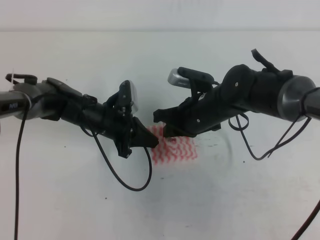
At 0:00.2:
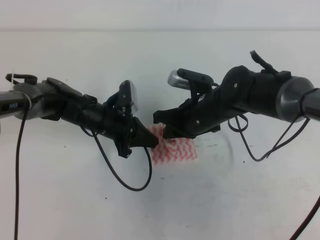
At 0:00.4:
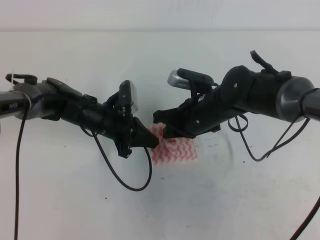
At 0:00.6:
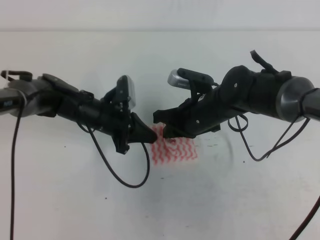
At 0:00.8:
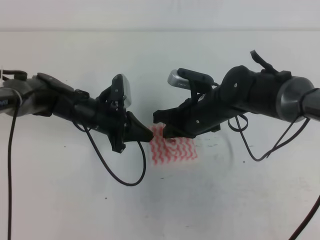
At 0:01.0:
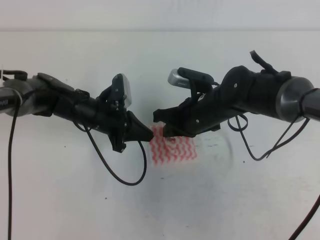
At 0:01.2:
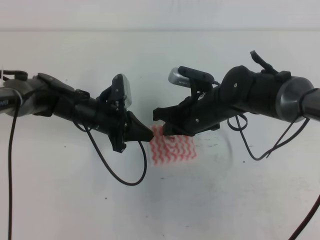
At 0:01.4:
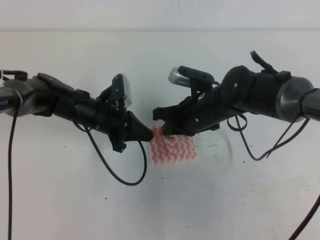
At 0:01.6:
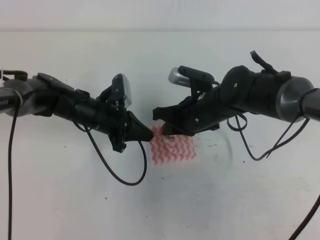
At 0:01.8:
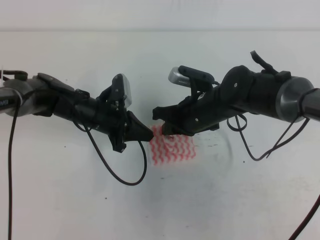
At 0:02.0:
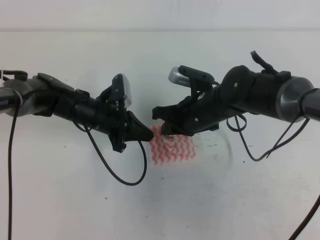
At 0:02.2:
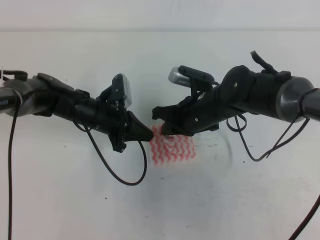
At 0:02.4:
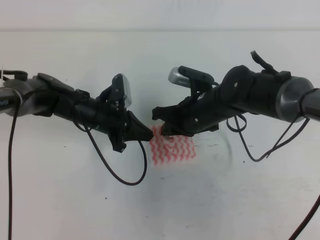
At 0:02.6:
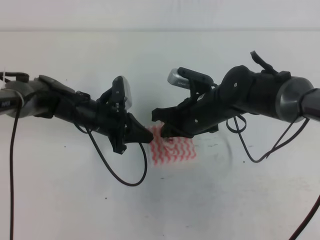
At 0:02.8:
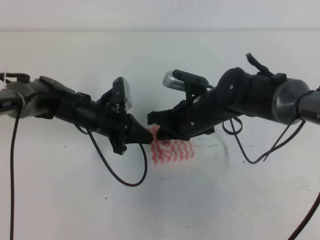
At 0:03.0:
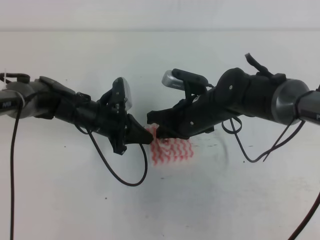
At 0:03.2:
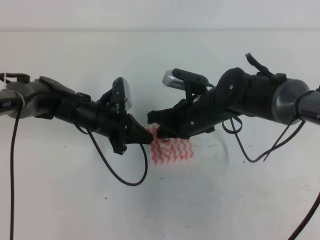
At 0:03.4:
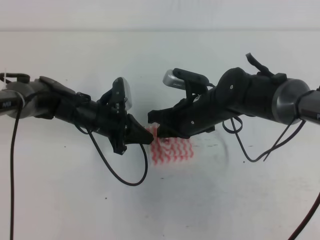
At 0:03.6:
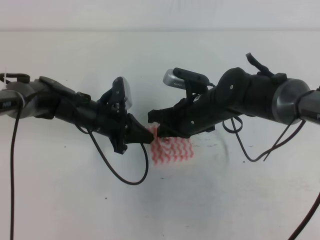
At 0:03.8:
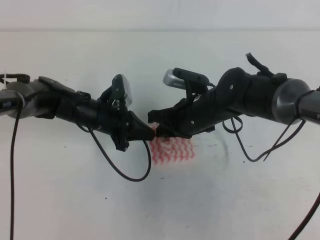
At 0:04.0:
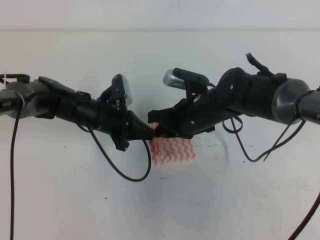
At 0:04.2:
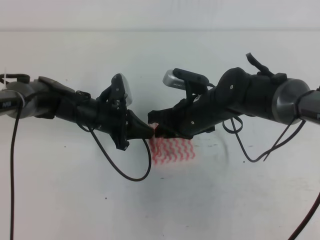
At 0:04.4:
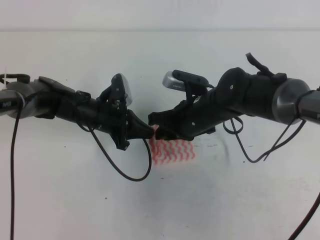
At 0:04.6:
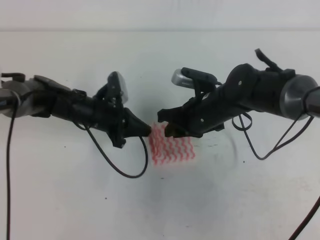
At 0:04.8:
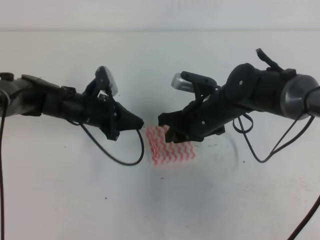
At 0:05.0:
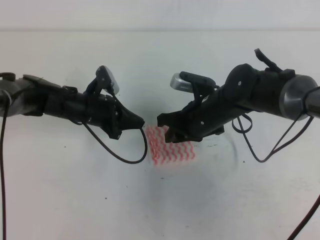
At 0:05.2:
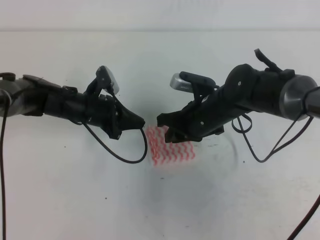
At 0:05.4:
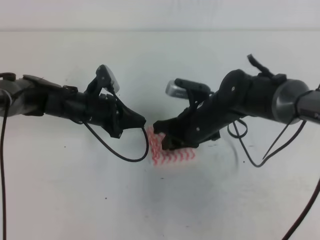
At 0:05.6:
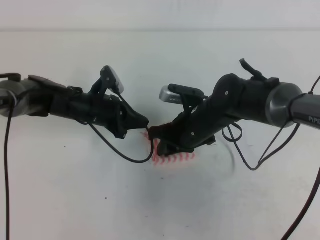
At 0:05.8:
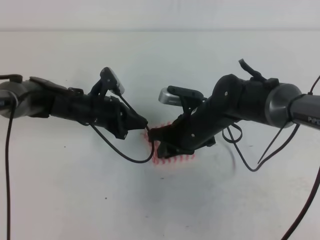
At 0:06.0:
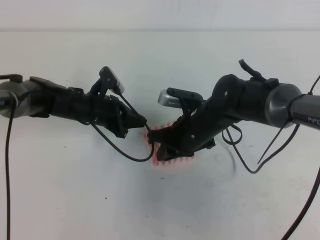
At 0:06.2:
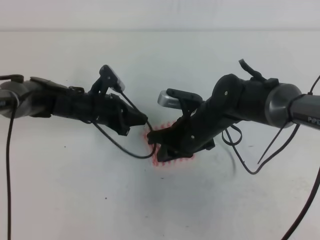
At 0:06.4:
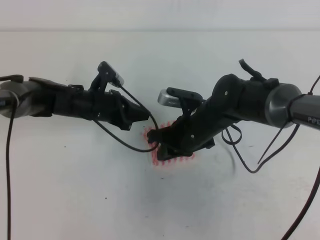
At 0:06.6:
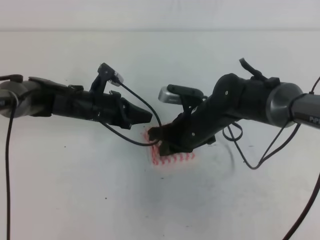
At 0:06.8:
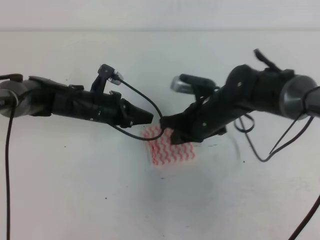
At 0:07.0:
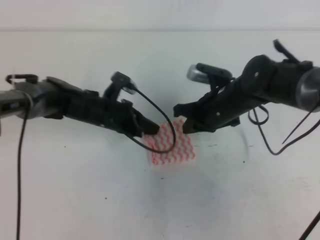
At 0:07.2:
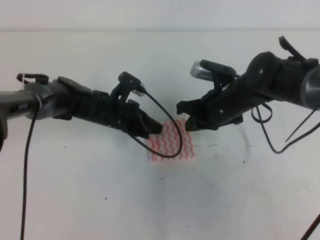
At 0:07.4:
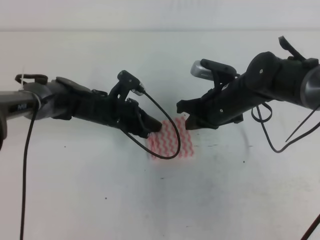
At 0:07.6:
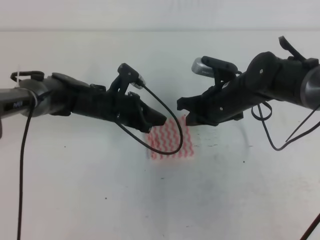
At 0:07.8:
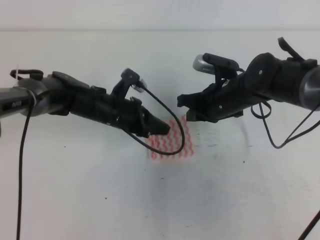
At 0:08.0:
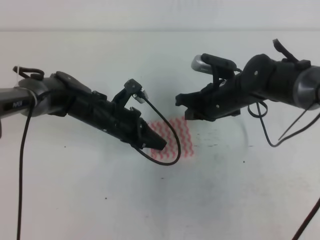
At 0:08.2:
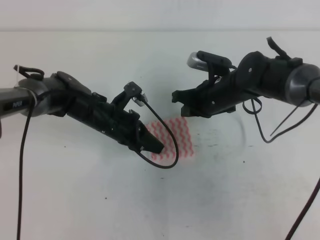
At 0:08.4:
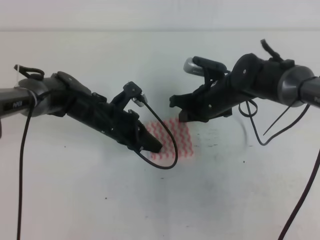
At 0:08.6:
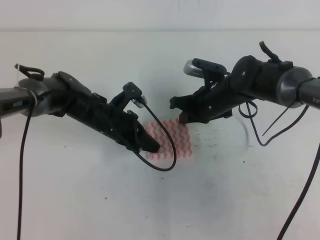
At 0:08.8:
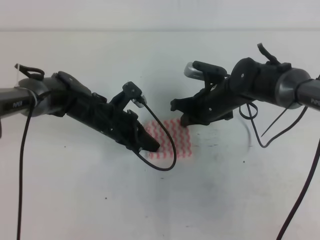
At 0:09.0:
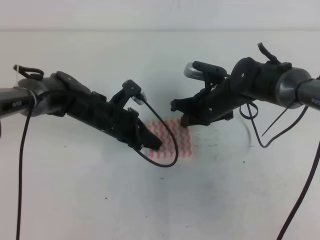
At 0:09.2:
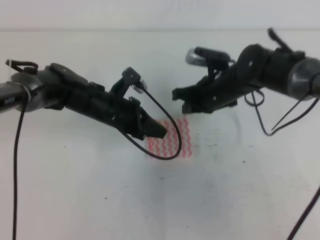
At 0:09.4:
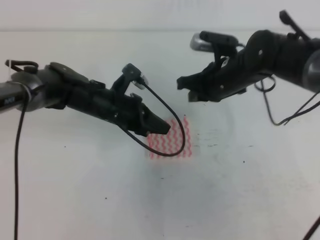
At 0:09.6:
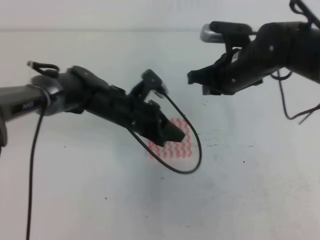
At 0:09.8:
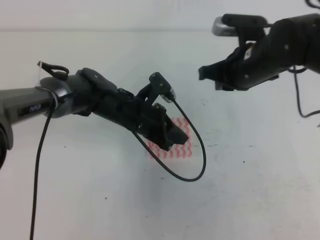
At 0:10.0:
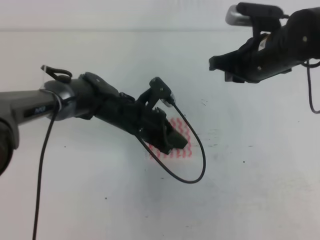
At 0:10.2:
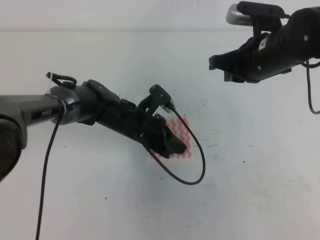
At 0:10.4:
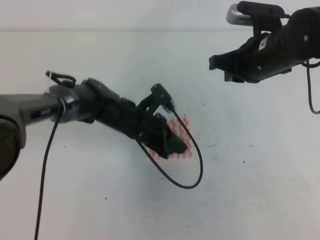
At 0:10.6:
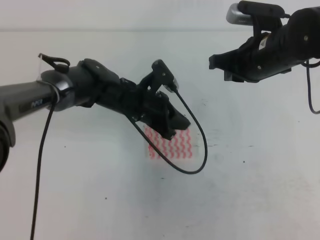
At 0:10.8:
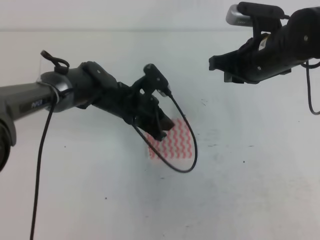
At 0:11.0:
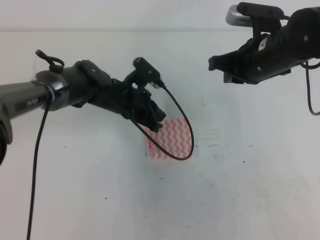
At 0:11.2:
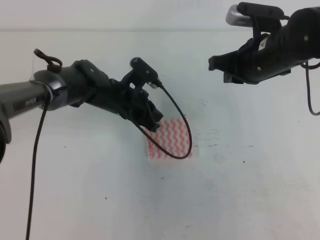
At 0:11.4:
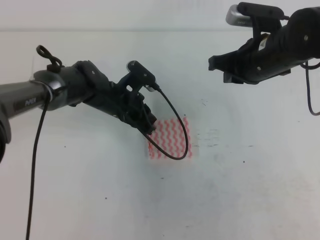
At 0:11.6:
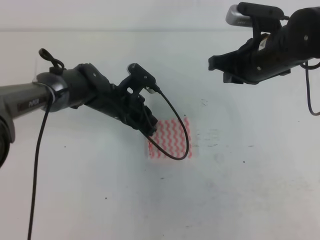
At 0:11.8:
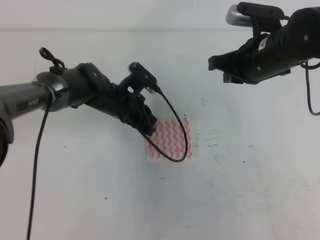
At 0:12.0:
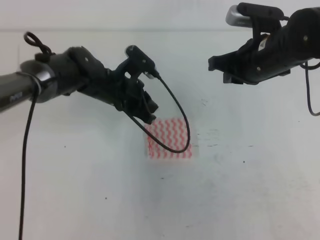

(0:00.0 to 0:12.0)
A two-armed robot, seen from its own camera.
0:00.0 - 0:01.6: The grippers move only a little.
0:01.6 - 0:03.0: Both grippers stay put.
0:03.0 - 0:04.4: The right gripper opens up.
0:04.4 - 0:06.0: The grippers move only a little.
0:06.0 - 0:07.6: The right gripper goes some 5 cm to the right.
0:07.6 - 0:09.0: The grippers move only a little.
0:09.0 - 0:10.4: The right gripper is displaced upward and to the right by about 15 cm. The left gripper heads to the right, covering roughly 5 cm.
0:10.4 - 0:12.0: The left gripper shifts by some 5 cm.

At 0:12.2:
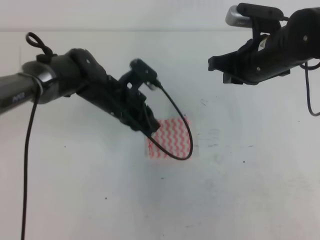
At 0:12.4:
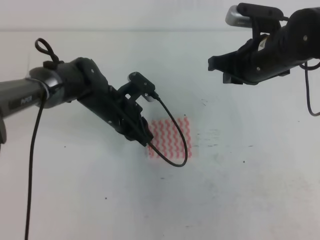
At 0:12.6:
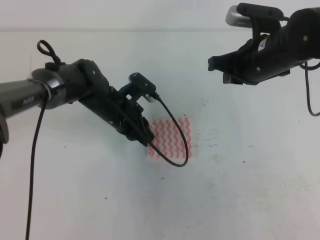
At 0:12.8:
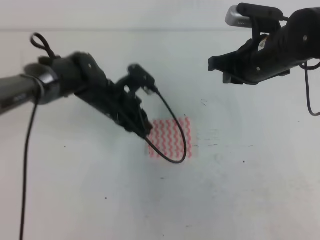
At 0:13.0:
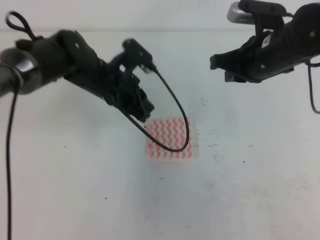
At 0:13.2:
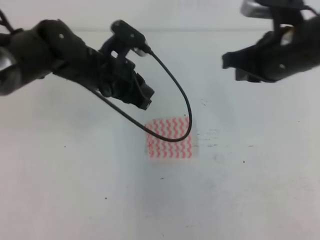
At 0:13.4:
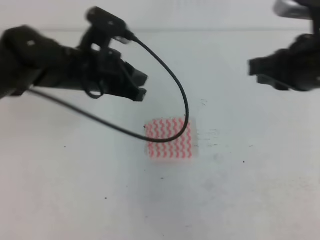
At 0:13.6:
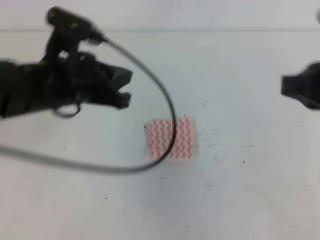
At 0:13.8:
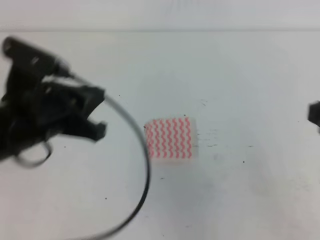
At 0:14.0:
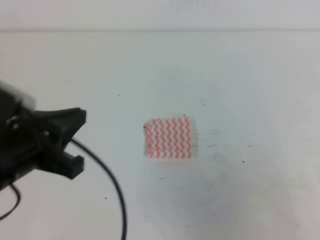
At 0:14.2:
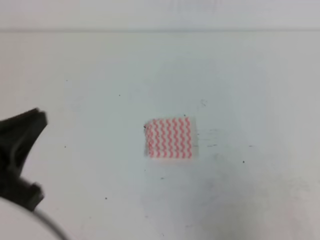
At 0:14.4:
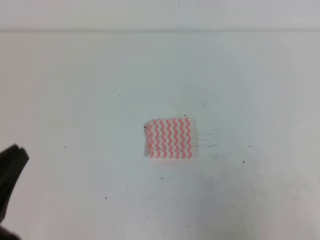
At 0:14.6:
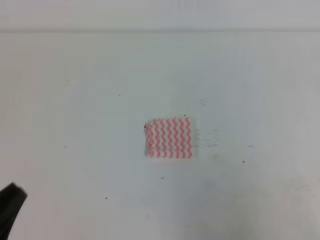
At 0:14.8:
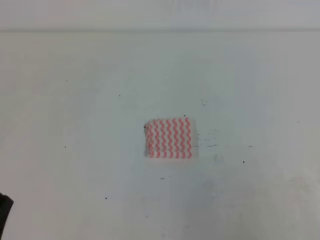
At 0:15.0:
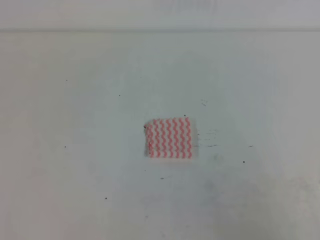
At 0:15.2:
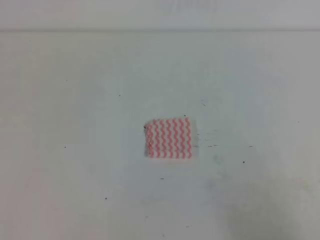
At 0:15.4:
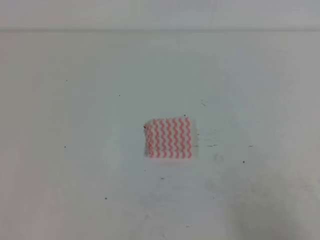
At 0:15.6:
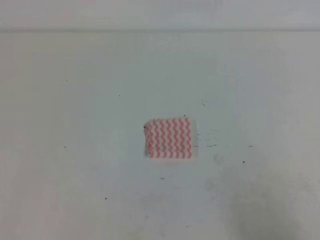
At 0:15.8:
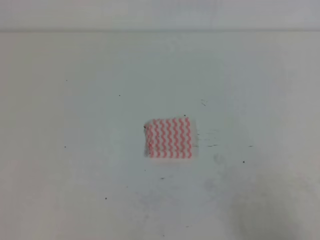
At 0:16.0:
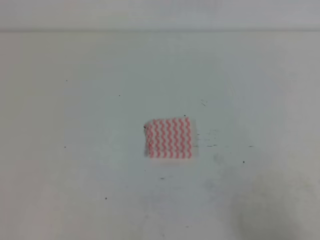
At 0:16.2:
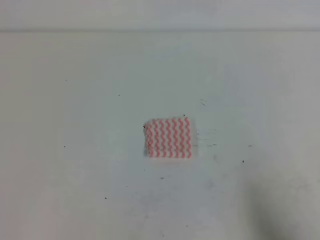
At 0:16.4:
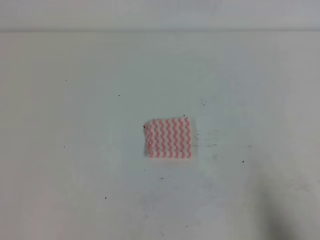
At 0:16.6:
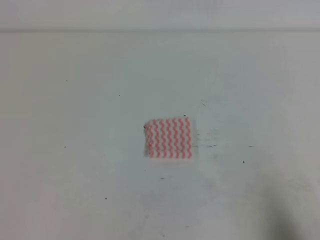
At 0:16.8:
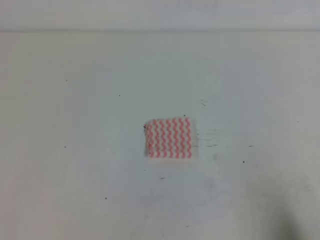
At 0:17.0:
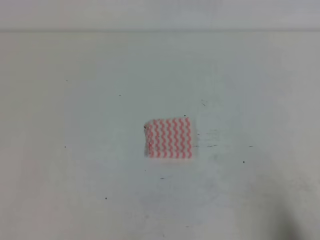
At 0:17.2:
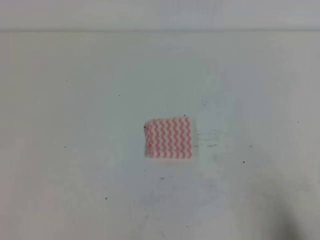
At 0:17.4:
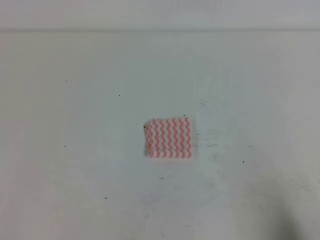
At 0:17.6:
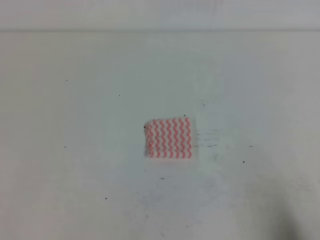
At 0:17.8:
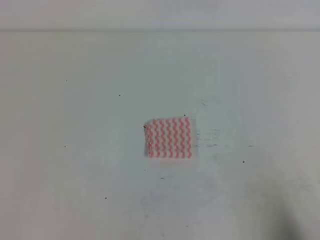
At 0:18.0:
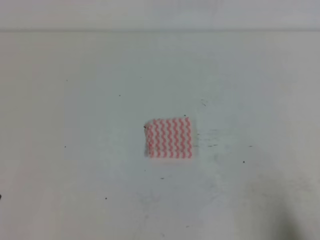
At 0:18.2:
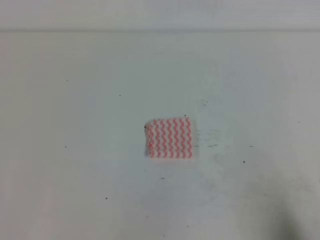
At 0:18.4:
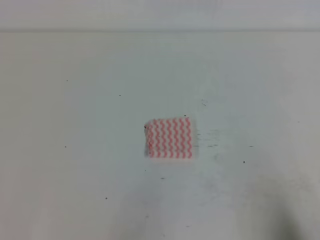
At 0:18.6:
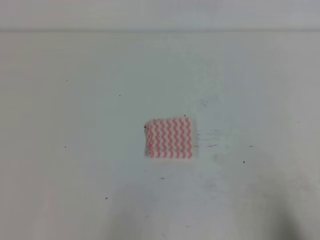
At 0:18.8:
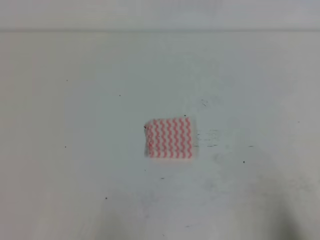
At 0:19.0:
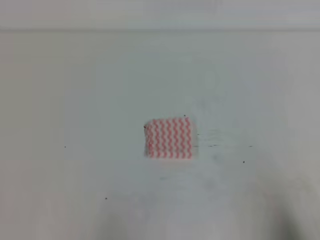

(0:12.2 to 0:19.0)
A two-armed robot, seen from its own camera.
Step, 0:12.2 - 0:19.0: Fold the towel.
0:12.2 - 0:13.6: The left gripper travels upward and backward by some 15 cm, while the right gripper shifts approximately 15 cm backward, upward and to the right.
0:13.6 - 0:15.0: The right gripper shifts some 20 cm backward, downward and to the right, while the left gripper heads backward, to the left and downward, covering some 30 cm.
0:15.0 - 0:16.2: The right gripper heads downward, covering roughly 5 cm.
